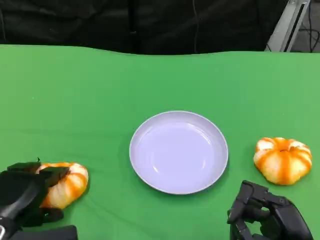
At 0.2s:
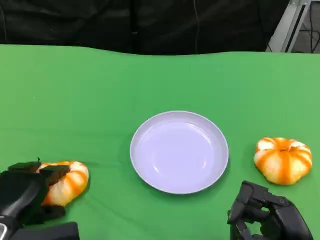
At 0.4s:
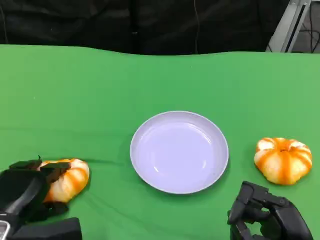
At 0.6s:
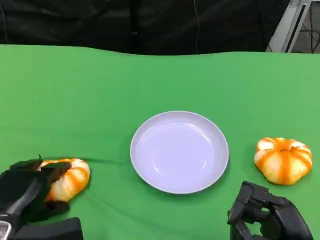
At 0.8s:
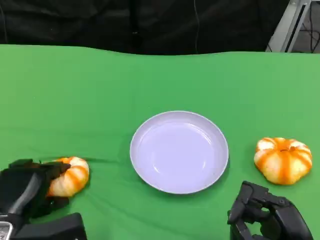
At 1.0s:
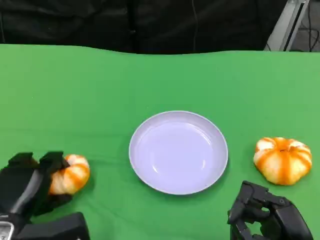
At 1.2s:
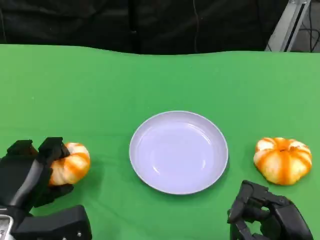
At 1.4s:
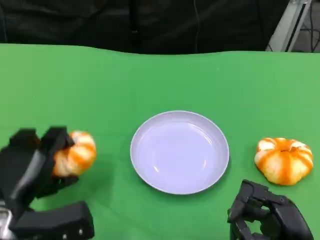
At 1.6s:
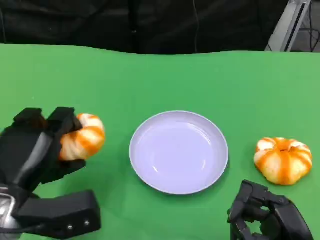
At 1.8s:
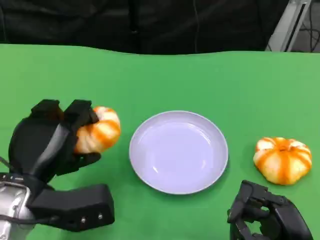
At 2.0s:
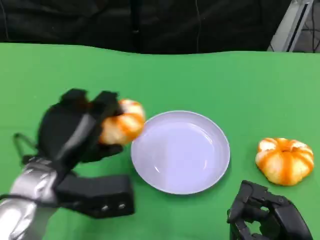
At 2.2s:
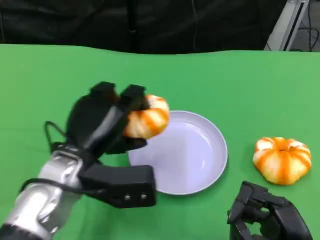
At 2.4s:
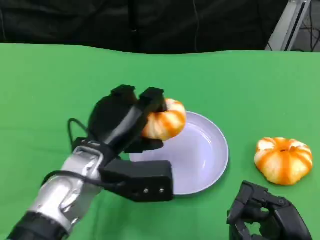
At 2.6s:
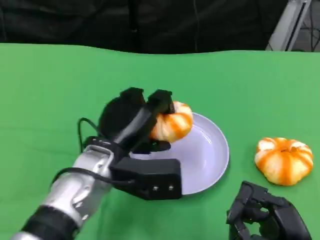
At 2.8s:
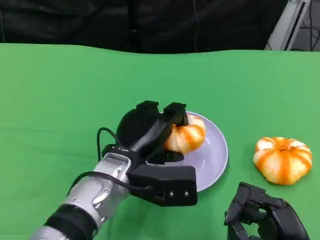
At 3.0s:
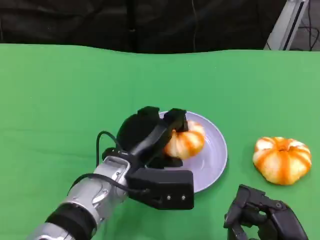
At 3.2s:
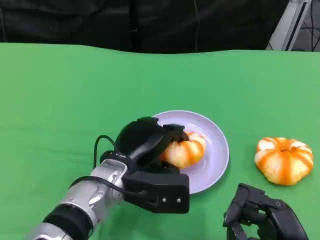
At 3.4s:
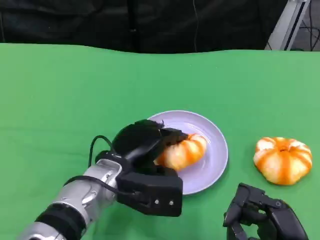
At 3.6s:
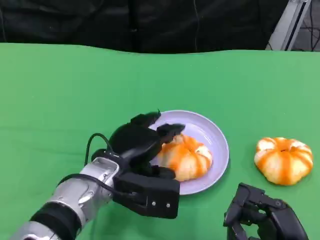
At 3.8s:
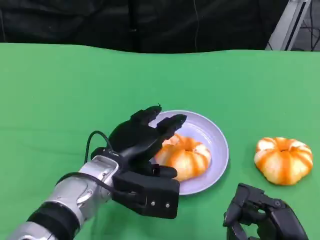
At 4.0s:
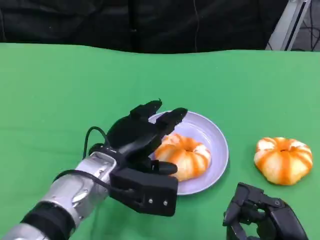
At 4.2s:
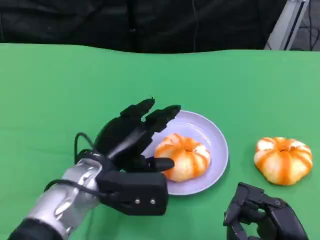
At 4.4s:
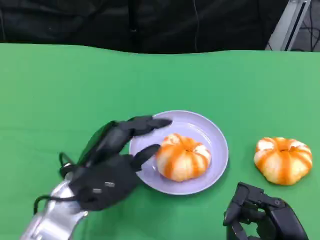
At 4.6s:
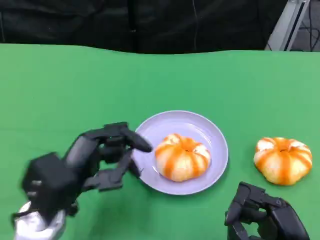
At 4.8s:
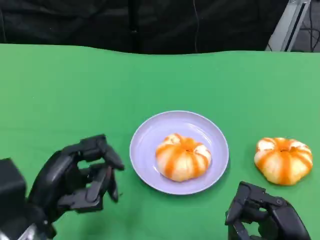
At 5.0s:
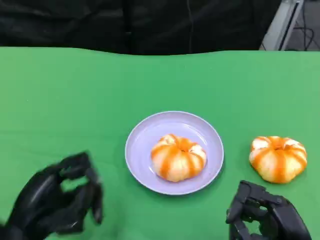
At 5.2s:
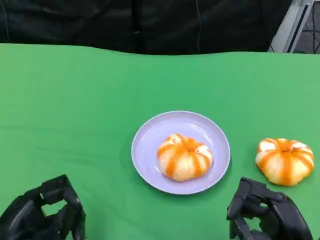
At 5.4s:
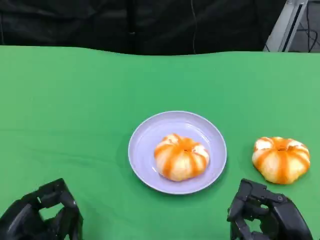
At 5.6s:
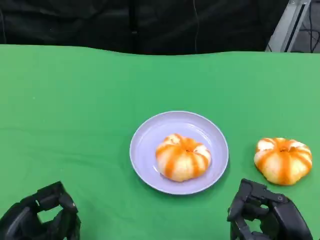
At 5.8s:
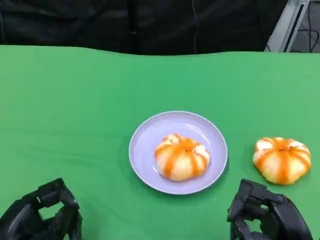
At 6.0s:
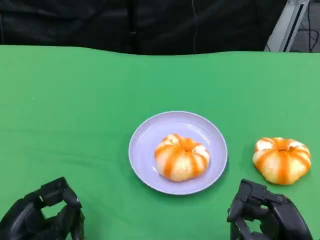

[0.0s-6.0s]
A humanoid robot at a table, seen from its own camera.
Task of the whole recording: Grasp the bread from the table and place it into the plate.
0.0s to 1.6s: The left hand is displaced upward by approximately 5 cm.
1.6s to 3.0s: The left hand shifts some 15 cm to the right and forward.
3.0s to 4.4s: The left hand goes roughly 5 cm to the left.
4.4s to 6.0s: The left hand goes approximately 15 cm to the left and backward.

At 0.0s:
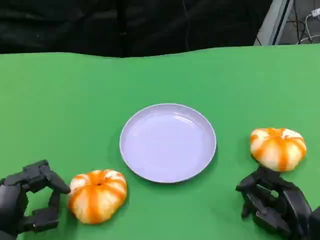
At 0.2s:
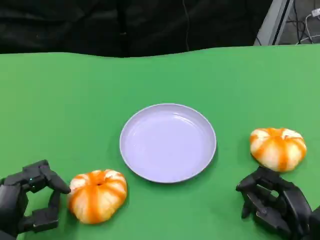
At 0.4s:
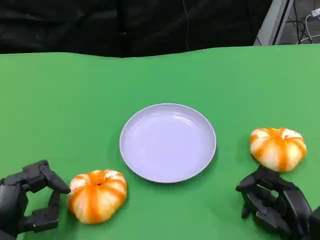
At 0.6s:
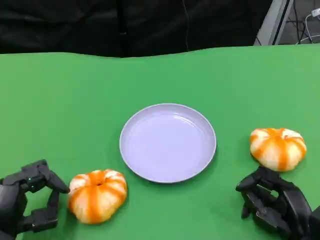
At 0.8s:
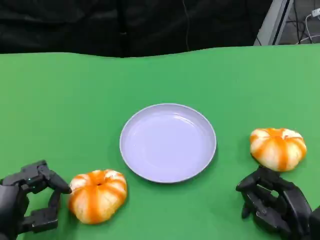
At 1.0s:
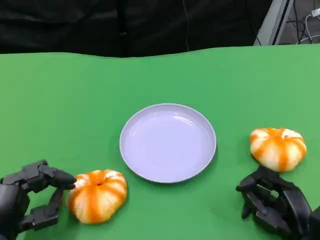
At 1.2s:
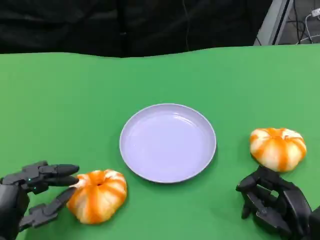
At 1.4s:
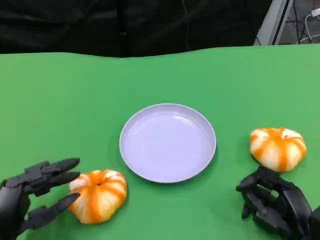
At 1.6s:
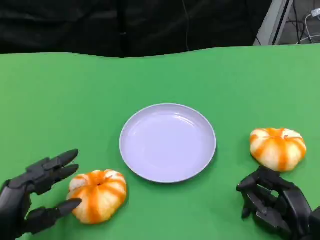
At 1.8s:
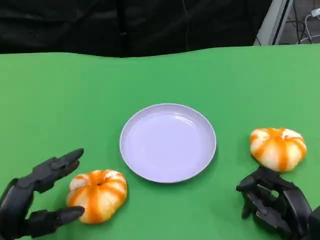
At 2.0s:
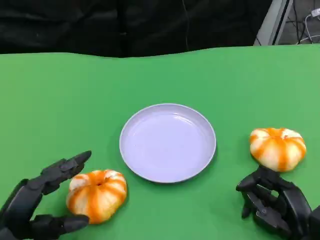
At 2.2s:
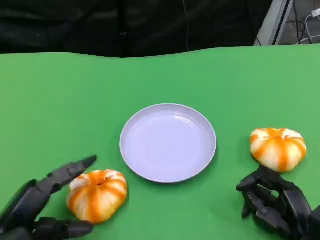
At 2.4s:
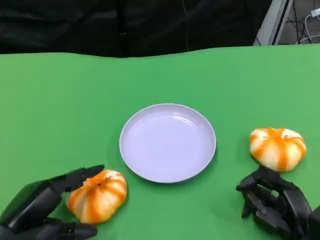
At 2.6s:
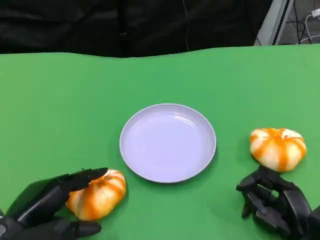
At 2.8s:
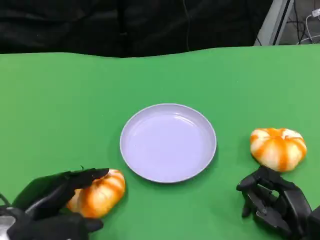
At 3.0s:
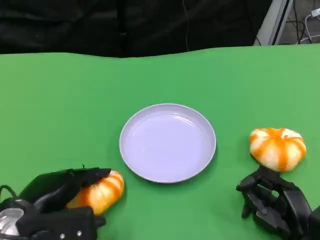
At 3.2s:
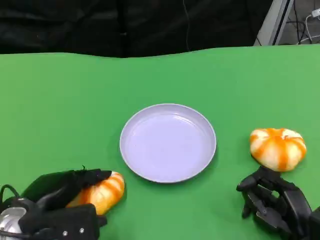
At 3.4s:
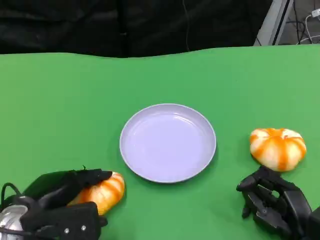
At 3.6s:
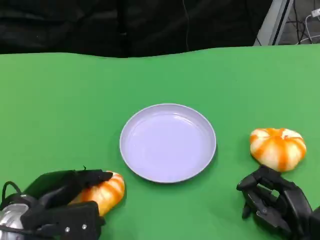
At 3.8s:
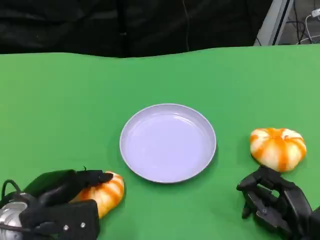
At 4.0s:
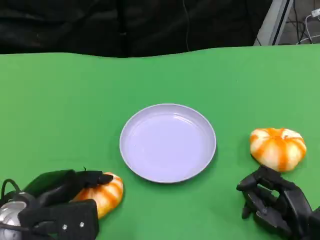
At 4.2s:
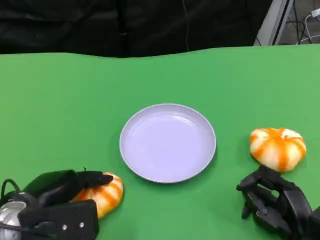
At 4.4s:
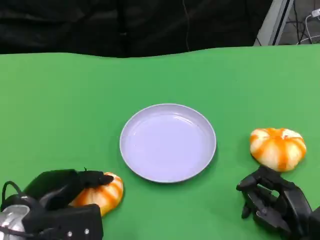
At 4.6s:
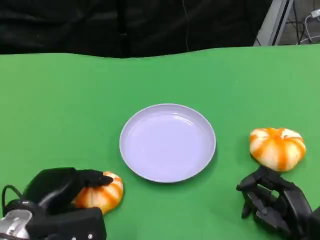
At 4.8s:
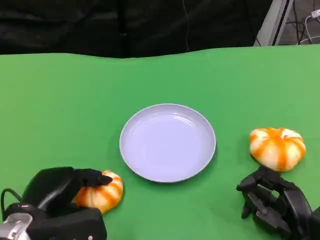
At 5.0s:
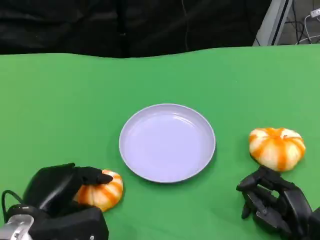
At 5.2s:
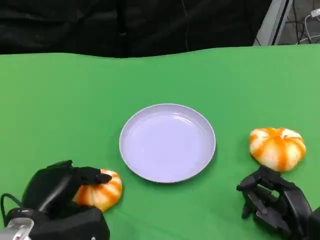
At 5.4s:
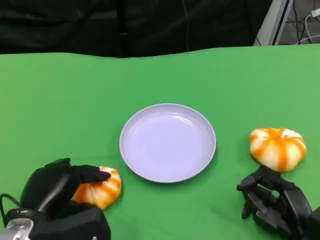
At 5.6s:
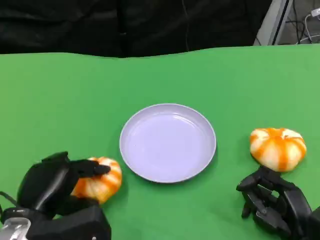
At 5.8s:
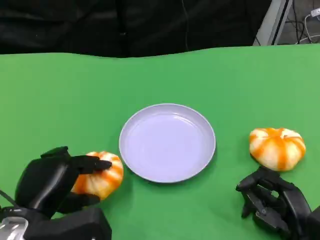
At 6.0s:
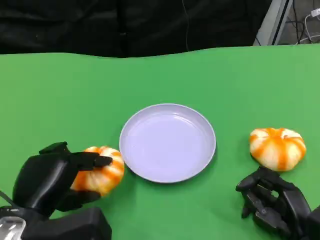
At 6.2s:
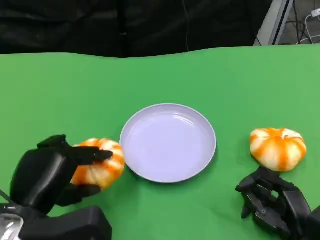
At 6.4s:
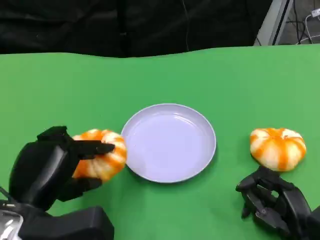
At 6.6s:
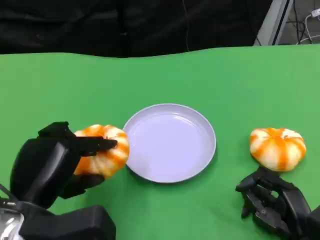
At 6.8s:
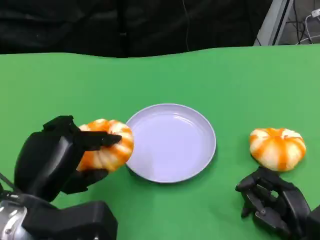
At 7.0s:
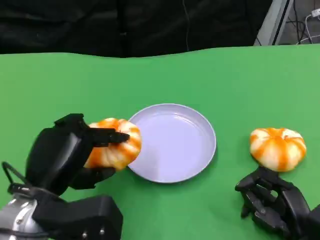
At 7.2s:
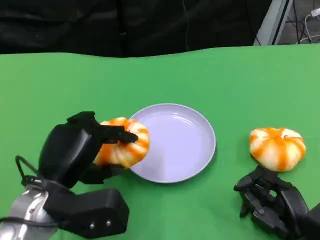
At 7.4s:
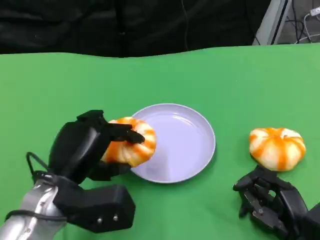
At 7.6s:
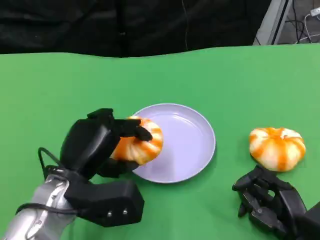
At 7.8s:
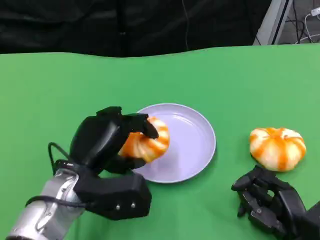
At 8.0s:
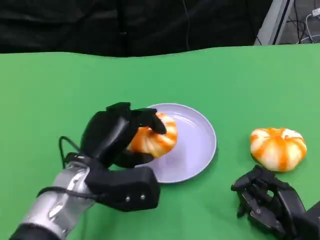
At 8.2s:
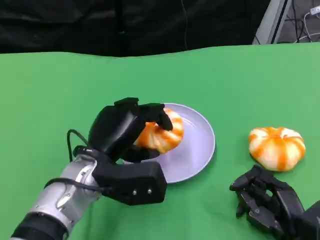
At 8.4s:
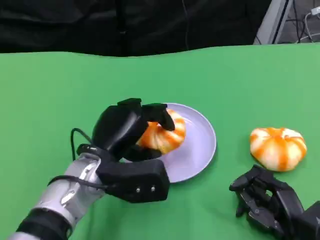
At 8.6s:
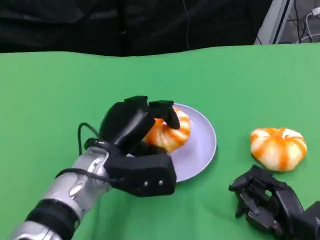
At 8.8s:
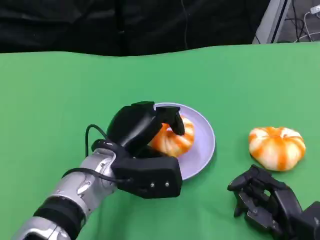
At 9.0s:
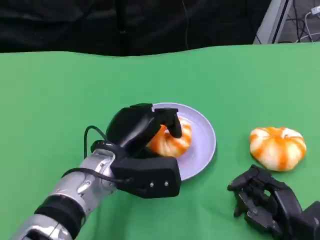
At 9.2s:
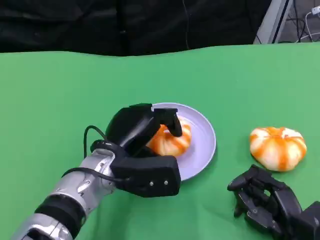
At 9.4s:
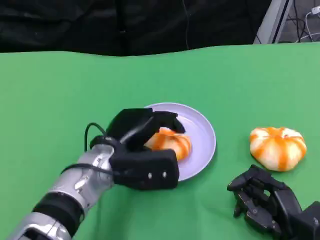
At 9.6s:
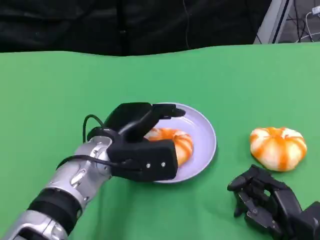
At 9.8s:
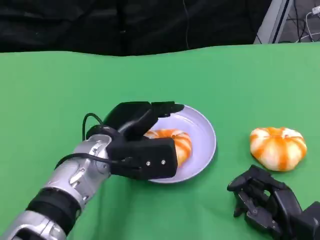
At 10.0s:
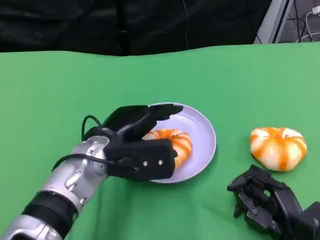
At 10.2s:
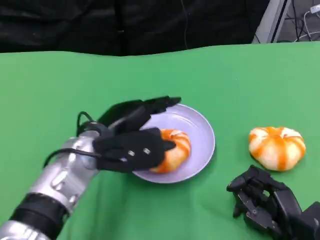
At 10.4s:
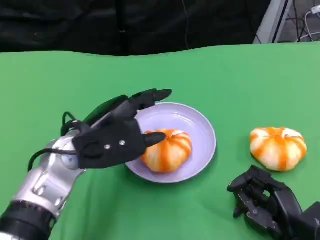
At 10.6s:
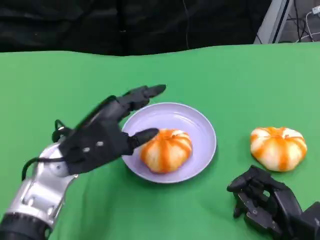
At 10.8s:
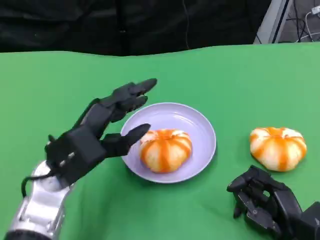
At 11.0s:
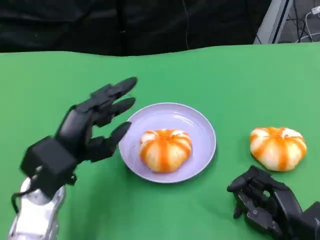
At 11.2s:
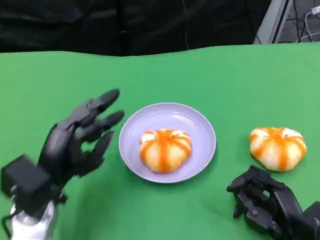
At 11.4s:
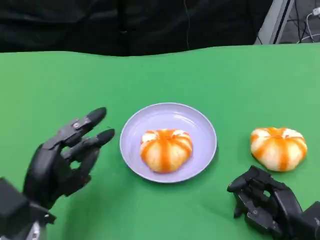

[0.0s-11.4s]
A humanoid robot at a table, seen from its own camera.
Task of the whole recording: Grasp the bread from the table and place it into the plate.
0.0s to 1.4s: Both hands stay about where they are.
1.4s to 2.8s: The left hand changes place by some 5 cm.
2.8s to 4.2s: The hands stay close to where they were, moving slightly.
5.6s to 7.2s: The left hand moves approximately 5 cm.
7.2s to 8.6s: The left hand is displaced to the right and forward by some 10 cm.
8.6s to 10.0s: There are only small adjustments of the hands.
10.0s to 11.4s: The left hand shifts some 15 cm to the left, backward and downward.

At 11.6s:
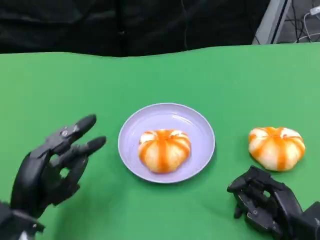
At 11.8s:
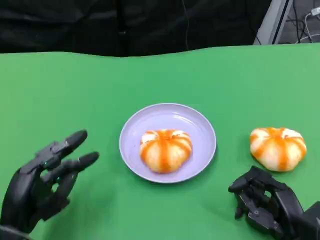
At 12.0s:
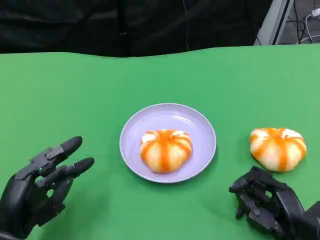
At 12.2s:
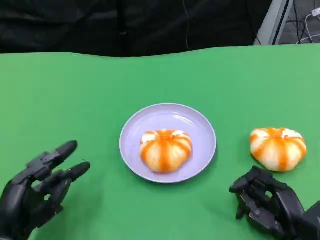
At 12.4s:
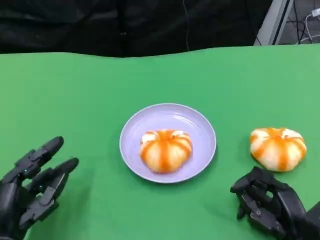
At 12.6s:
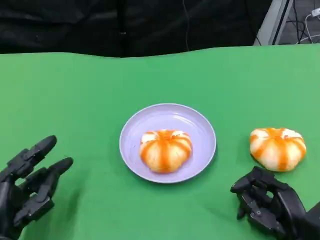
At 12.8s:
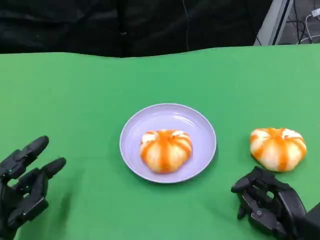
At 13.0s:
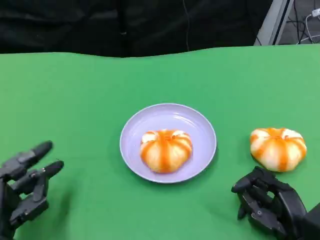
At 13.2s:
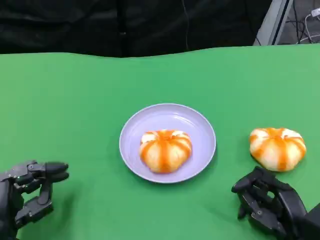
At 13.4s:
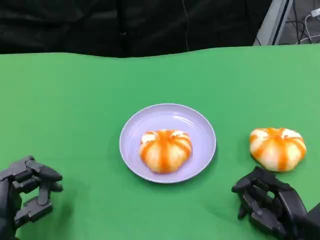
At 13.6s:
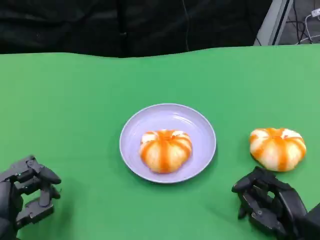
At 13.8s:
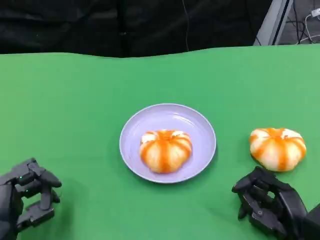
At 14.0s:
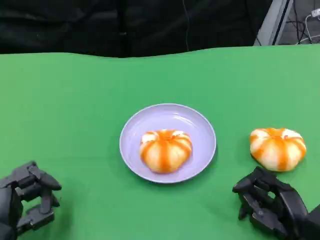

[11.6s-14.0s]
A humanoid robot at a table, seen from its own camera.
Task of the whole recording: Grasp the bread from the table and place it into the plate.
11.6s to 12.8s: The hands stay close to where they were, moving slightly.
12.8s to 14.0s: The hands move only a little.

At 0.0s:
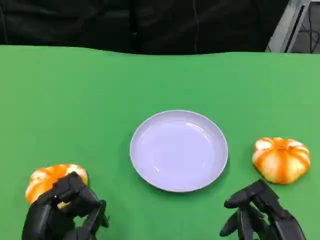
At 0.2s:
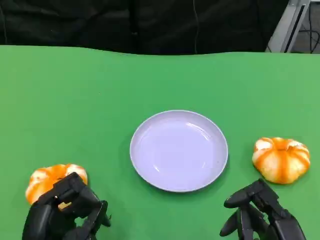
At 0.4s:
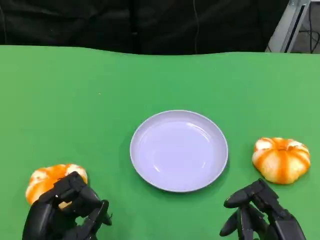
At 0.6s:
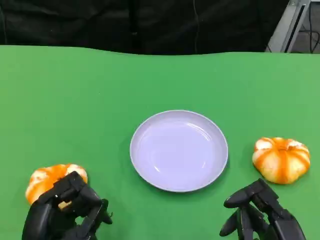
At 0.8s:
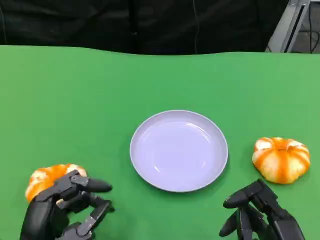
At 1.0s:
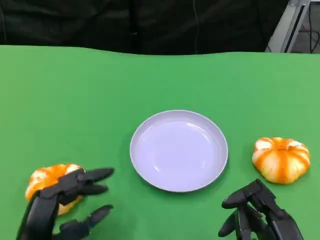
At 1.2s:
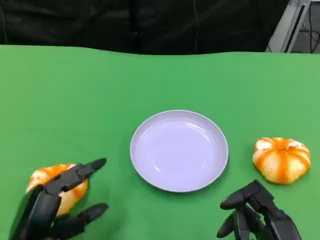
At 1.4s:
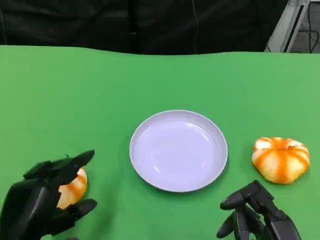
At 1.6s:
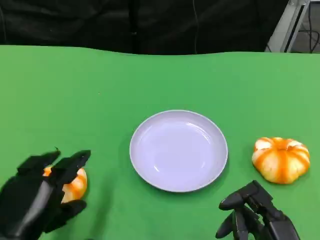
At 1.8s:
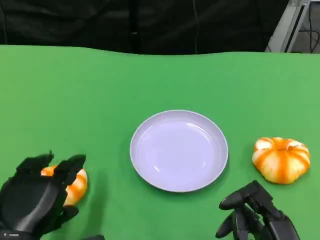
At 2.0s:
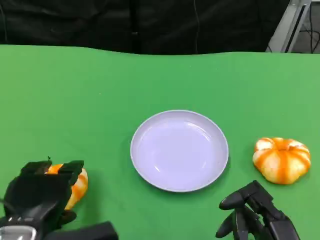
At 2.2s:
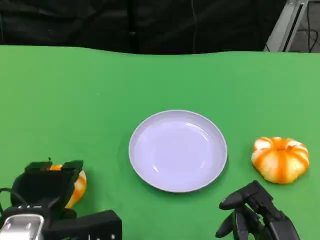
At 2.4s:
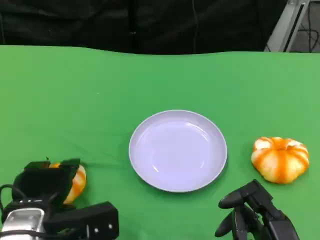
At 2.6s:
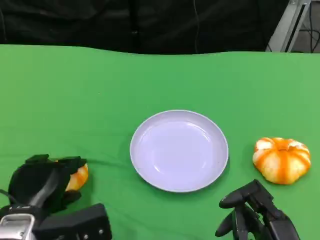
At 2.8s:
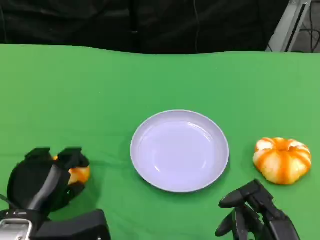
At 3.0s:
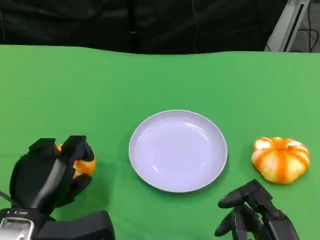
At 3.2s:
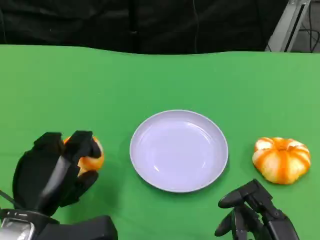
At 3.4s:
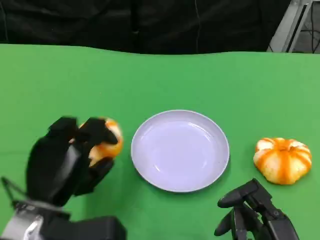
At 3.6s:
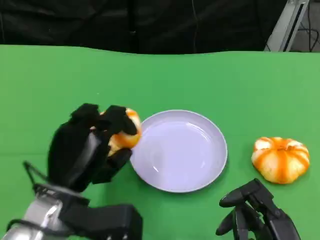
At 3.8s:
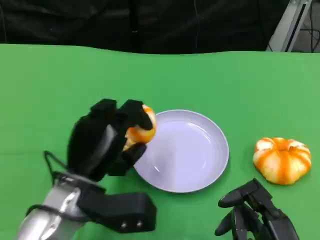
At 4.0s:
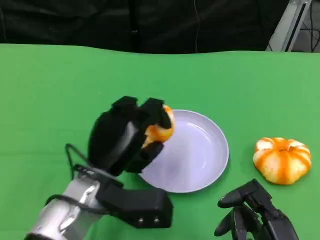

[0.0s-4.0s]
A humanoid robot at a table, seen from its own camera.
Task of the whole recording: Grasp the bread from the table and place it into the plate.
1.4s to 2.6s: The left hand travels forward by approximately 5 cm.
2.6s to 4.0s: The left hand is displaced to the right by about 10 cm.
